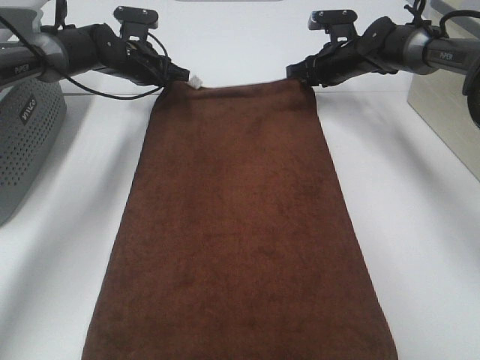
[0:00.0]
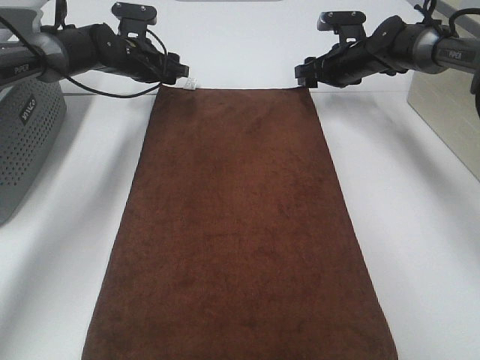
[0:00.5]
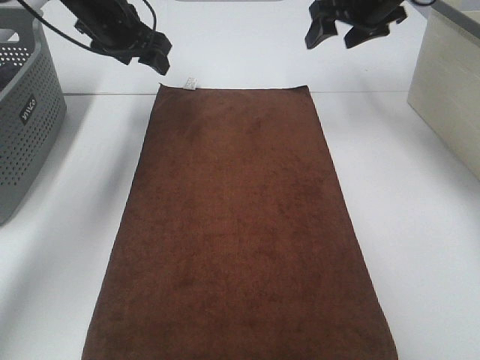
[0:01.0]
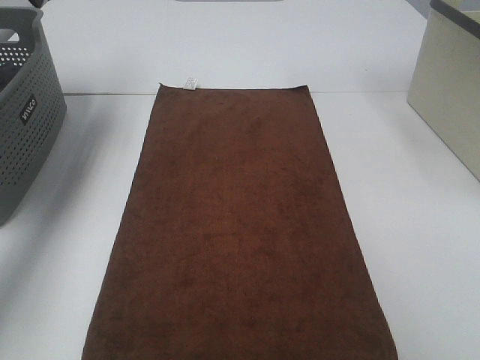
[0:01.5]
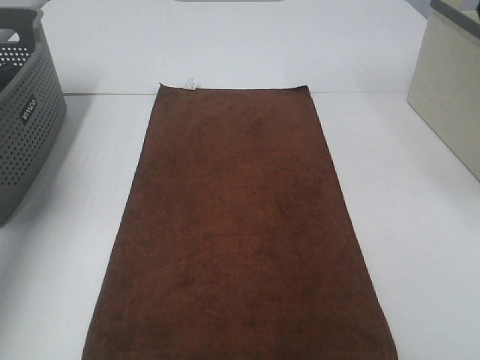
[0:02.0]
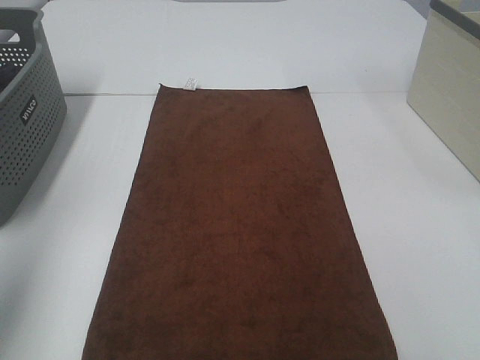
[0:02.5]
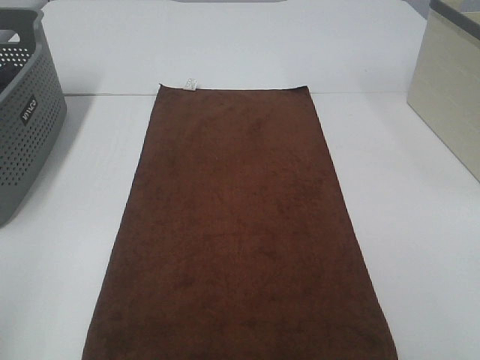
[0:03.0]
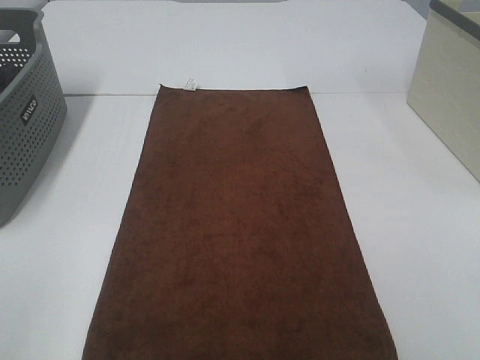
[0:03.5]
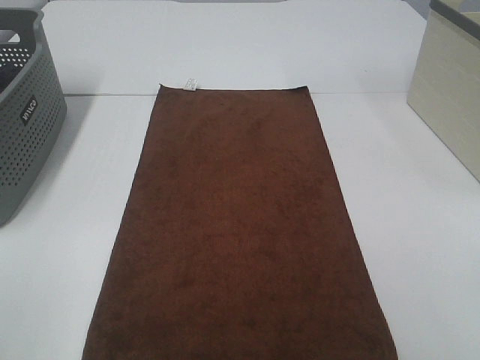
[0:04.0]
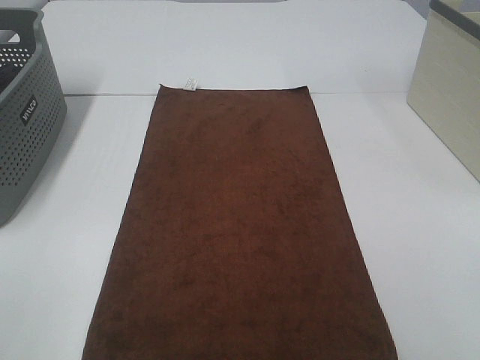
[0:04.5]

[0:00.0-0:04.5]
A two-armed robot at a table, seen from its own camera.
Task of the whole recording: Remove the towel and place it.
0:00.0 to 0:02.0: The right gripper goes about 40 cm upward and backward, and opens its fingers. The left gripper goes some 40 cm upward, backward and to the left, and opens.
0:02.0 to 0:04.5: The left gripper is displaced backward by roughly 35 cm.

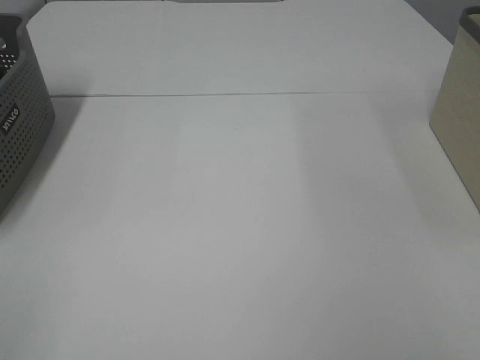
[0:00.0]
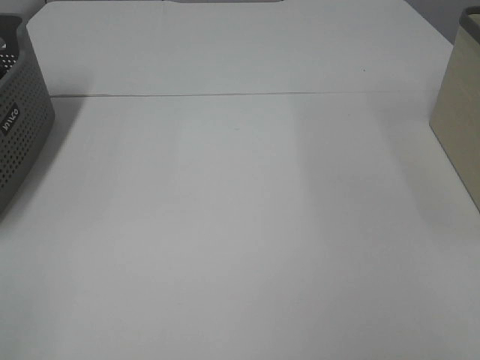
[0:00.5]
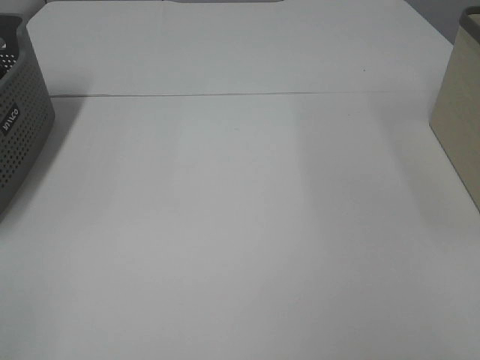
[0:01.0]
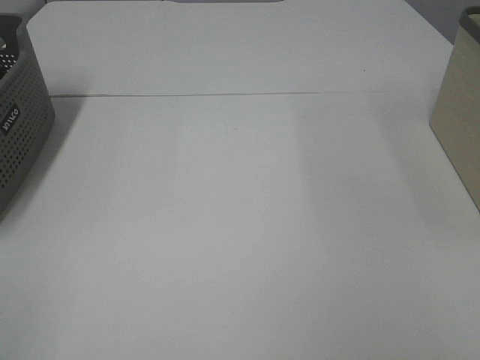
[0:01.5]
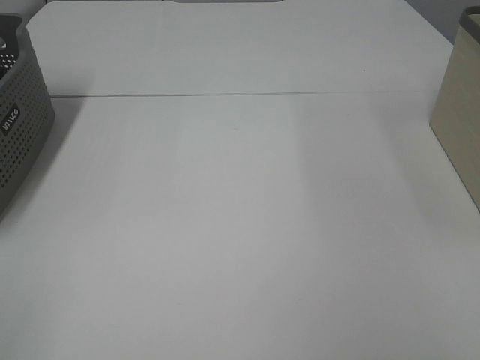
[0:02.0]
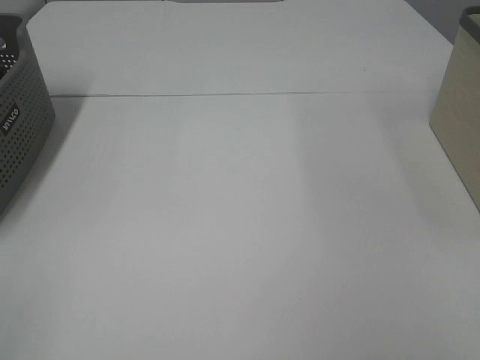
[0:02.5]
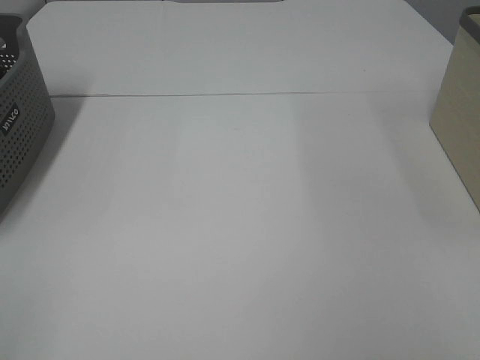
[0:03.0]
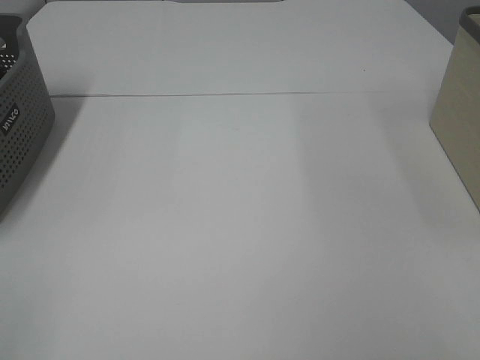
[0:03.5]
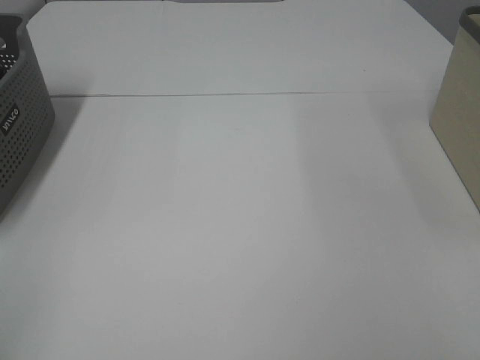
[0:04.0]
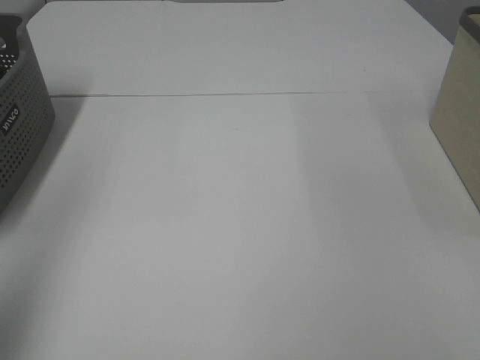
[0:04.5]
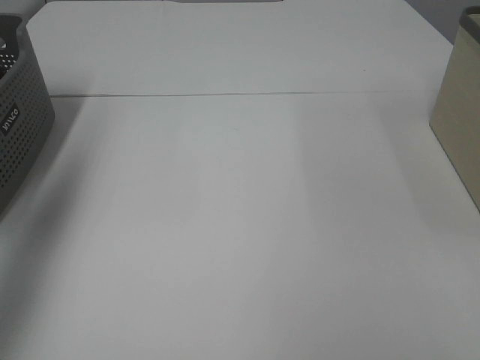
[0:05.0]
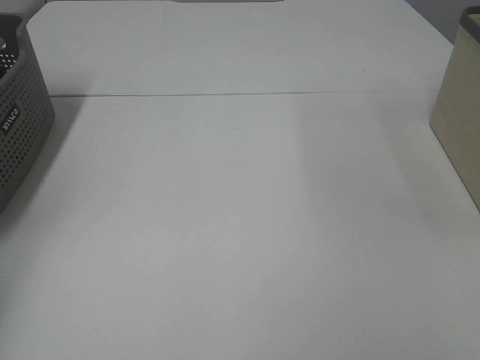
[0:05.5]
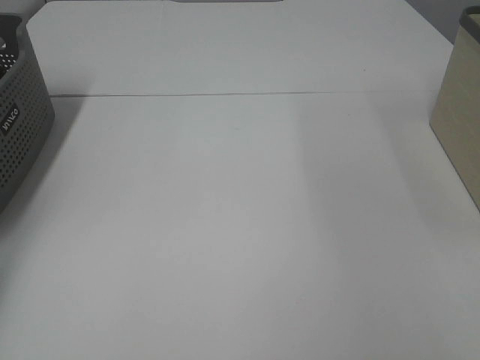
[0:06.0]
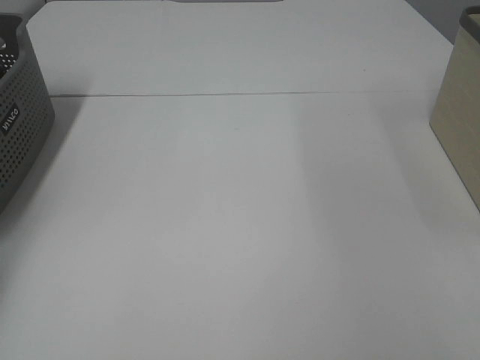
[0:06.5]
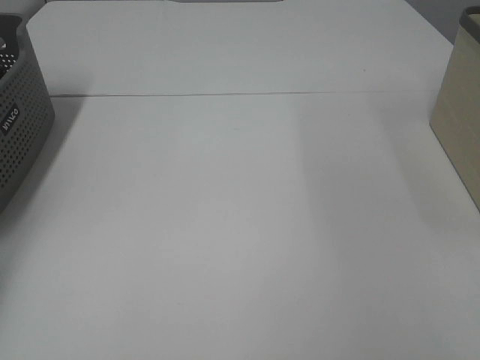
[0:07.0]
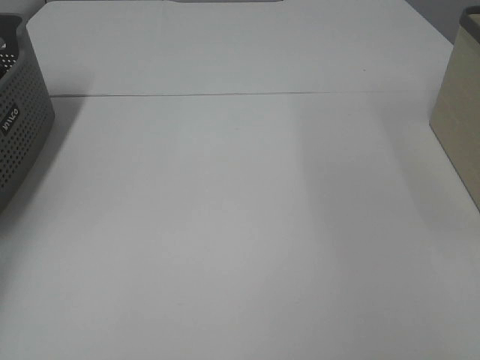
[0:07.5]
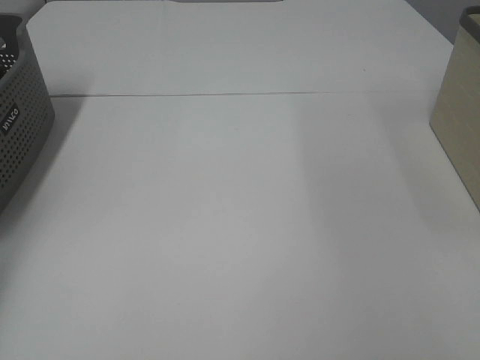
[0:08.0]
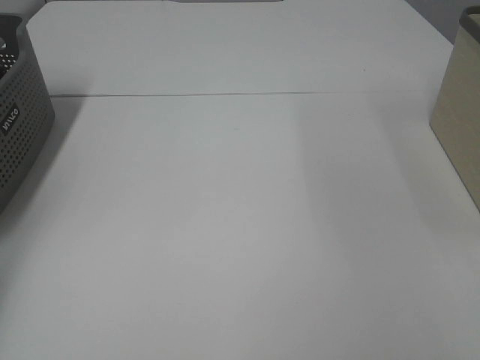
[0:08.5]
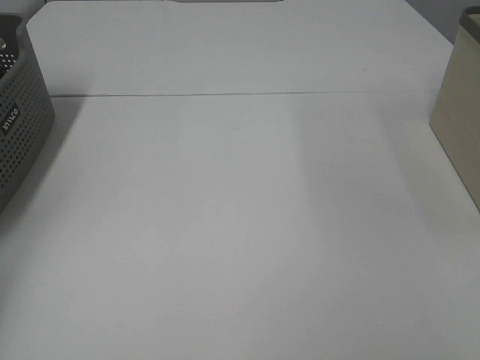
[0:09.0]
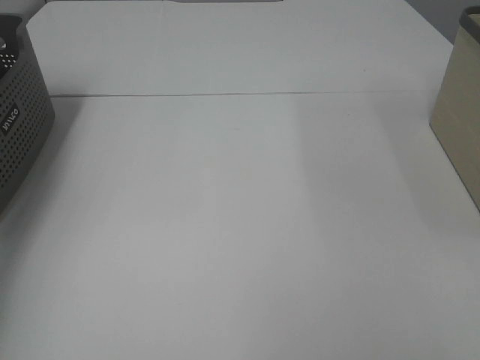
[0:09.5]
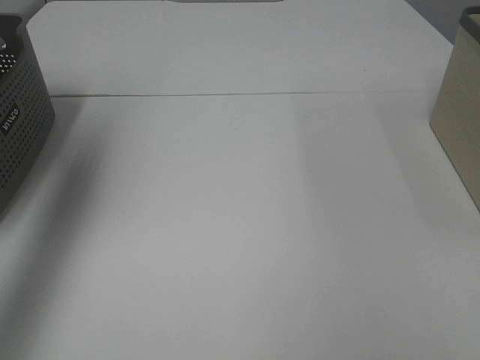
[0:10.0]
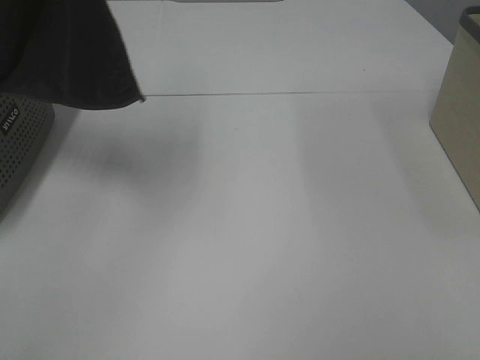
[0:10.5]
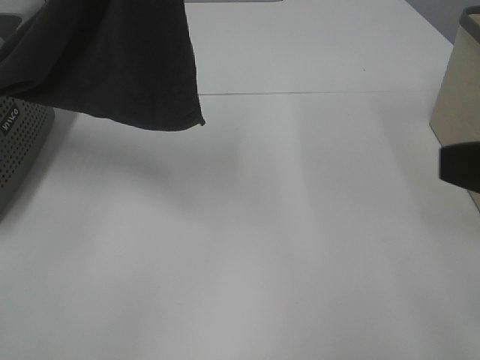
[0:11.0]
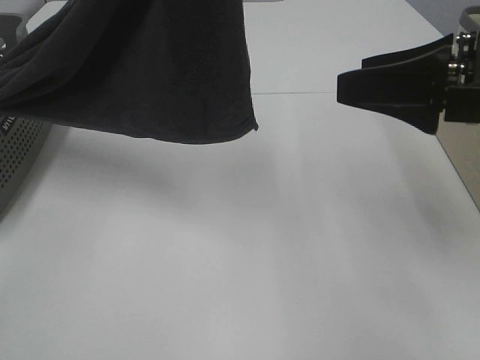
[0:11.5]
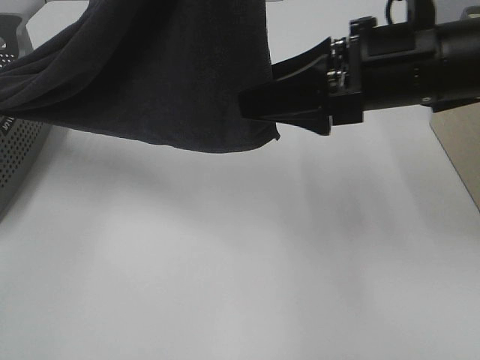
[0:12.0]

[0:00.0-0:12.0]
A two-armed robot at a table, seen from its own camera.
Task of the whole recording: Remove the towel and place it.
0:00.0 to 0:02.0: Both grippers stay put.
0:04.0 to 0:06.0: The left gripper goes about 40 cm forward.
0:08.0 to 0:10.0: The left gripper is displaced upward and to the right by some 35 cm.
0:10.0 to 0:12.0: The left gripper is displaced to the right by some 20 cm, while the right gripper shifts approximately 30 cm forward and to the left.

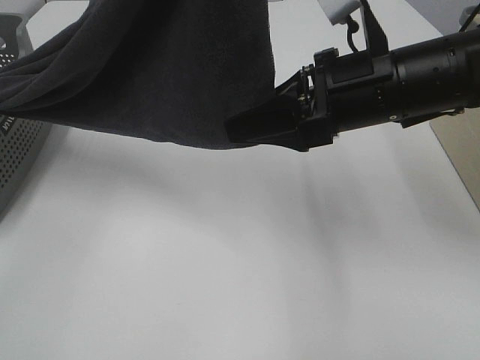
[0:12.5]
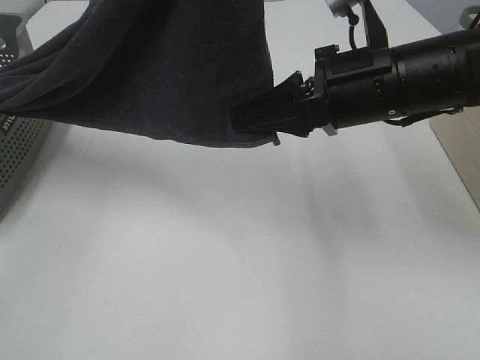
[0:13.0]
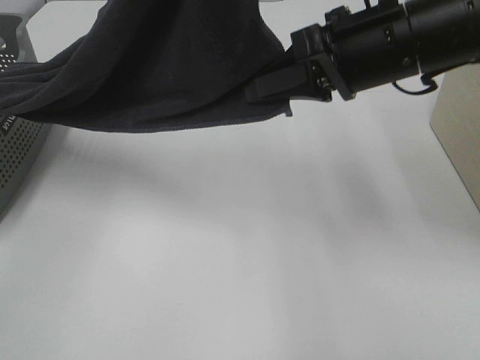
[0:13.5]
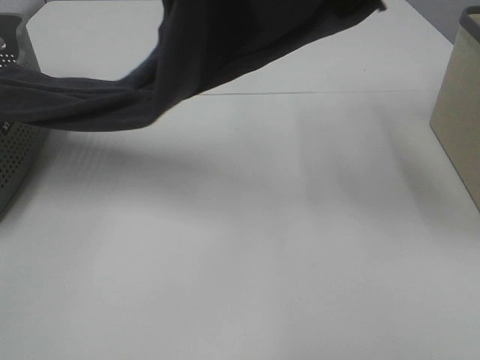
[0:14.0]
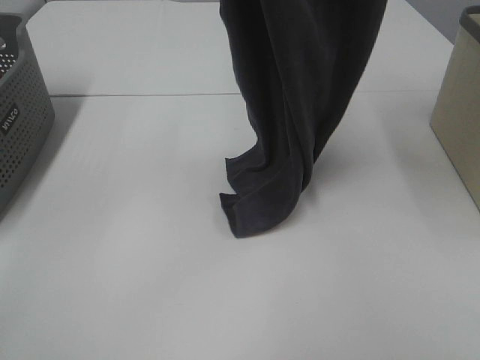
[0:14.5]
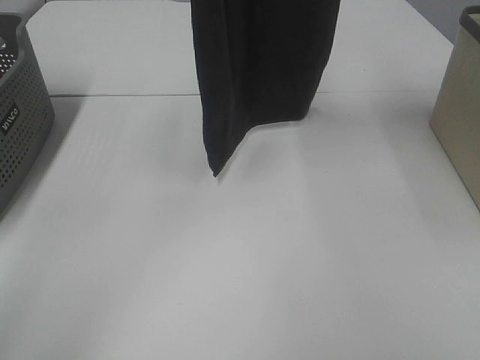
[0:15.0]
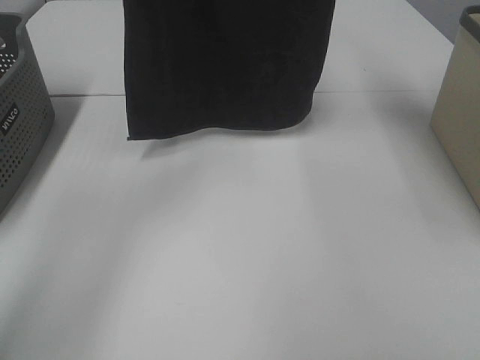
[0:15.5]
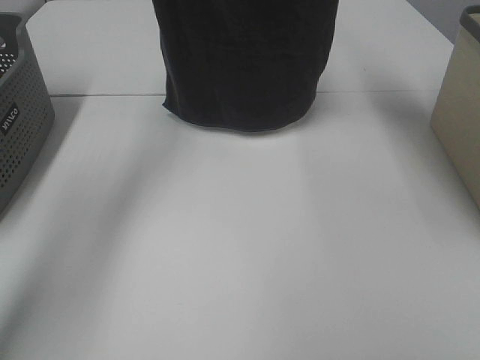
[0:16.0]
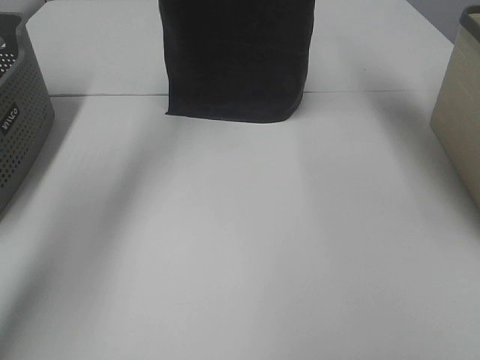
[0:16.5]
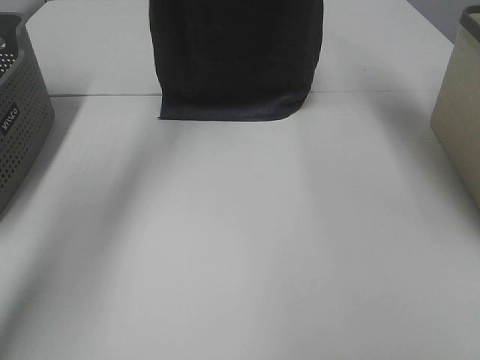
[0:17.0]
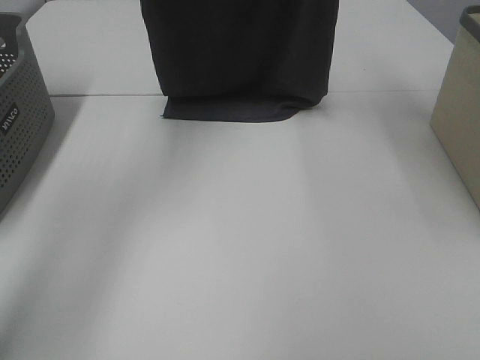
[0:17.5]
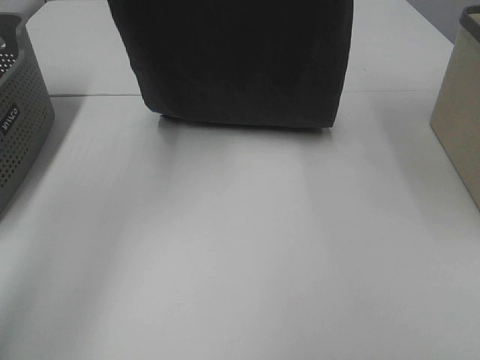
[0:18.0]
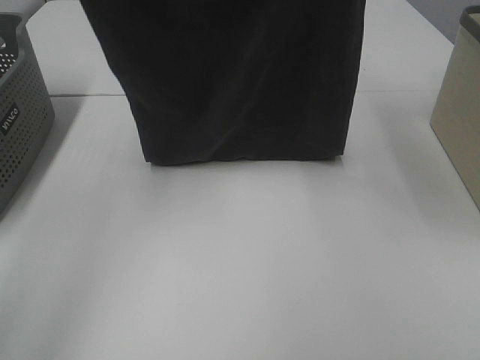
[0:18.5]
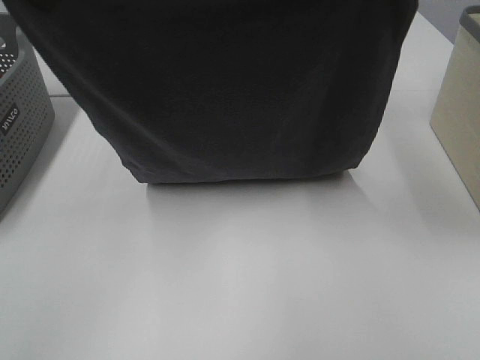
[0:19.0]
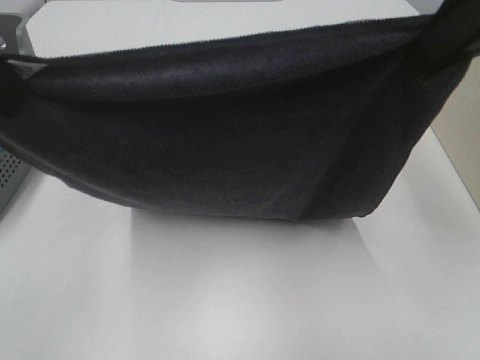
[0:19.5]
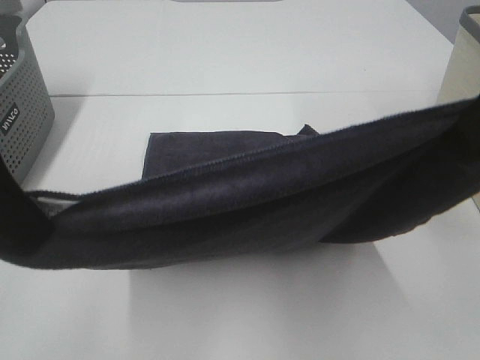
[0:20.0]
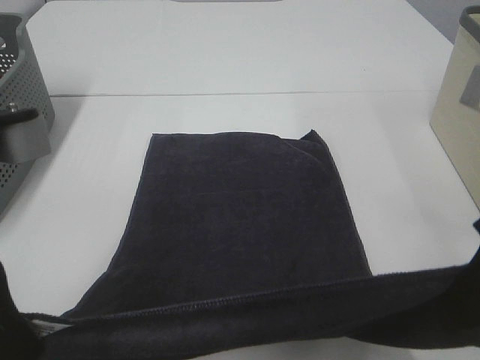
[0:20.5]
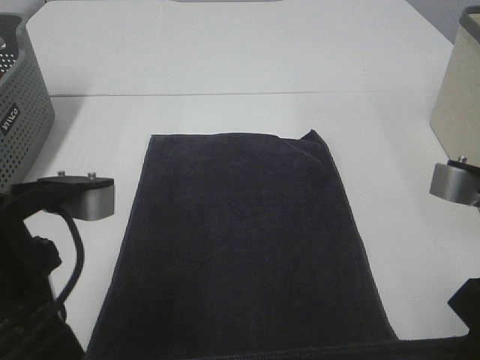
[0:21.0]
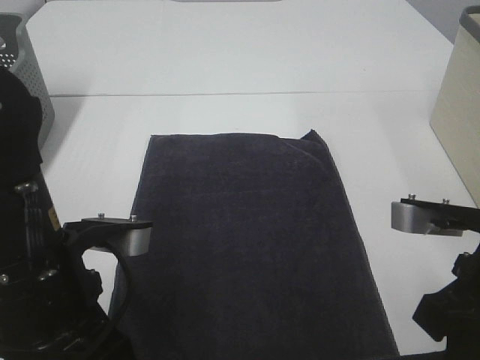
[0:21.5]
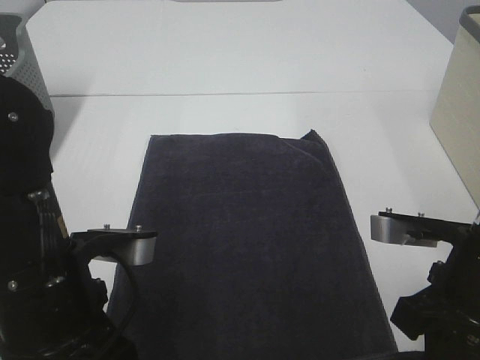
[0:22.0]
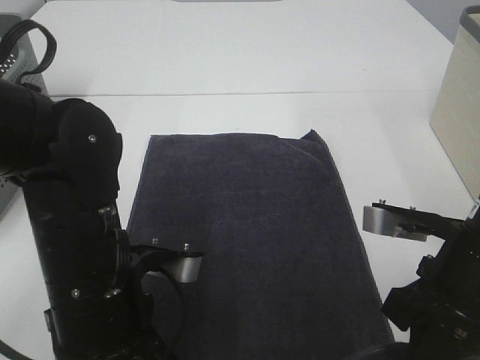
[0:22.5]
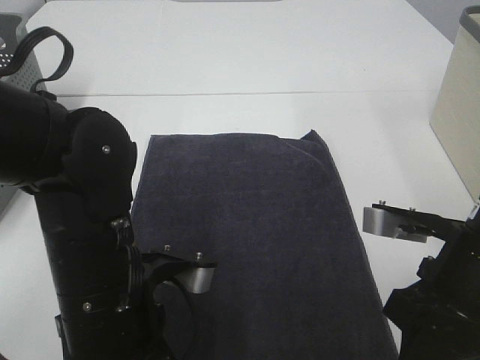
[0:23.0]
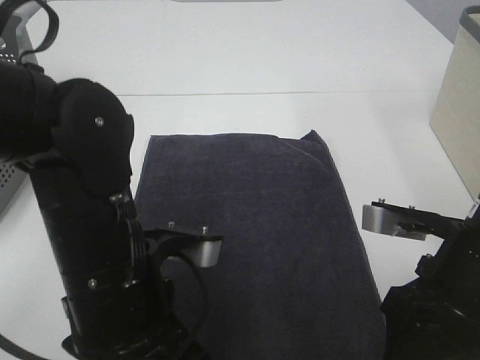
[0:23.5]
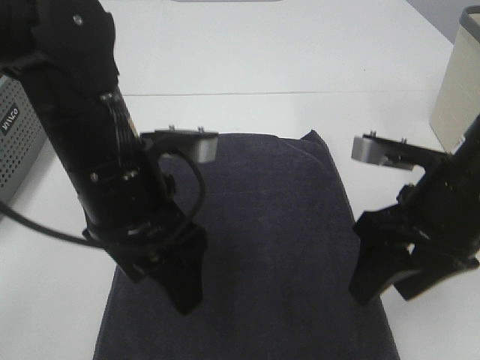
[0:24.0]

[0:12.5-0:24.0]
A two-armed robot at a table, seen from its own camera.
Task of the whole recording: Remove the towel and place it.
Step, 0:13.5 to 0:19.0: Left hand: spread the grey towel flat on the table.
Step, 0:13.5 to 0:19.0: Right hand: spread the grey towel flat on the table.
0:12.5 to 0:14.5: The right gripper moves upward, about 25 cm, and closes up; the left gripper shifts about 10 cm forward.
0:14.5 to 0:16.5: The left gripper shifts roughly 20 cm forward, while the right gripper shifts roughly 10 cm forward.
0:16.5 to 0:18.5: The grippers both shift backward by approximately 15 cm.
0:18.5 to 0:20.0: The grippers both shift backward and downward by some 20 cm.
0:20.0 to 0:22.0: The grippers both shift downward by approximately 20 cm.
0:22.0 to 0:24.0: The right gripper shifts by some 5 cm, and opens up, while the left gripper is displaced forward by about 5 cm, and opens its fingers.
